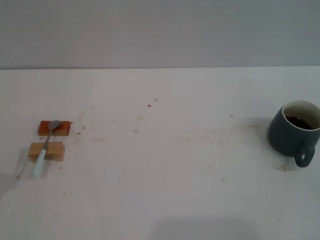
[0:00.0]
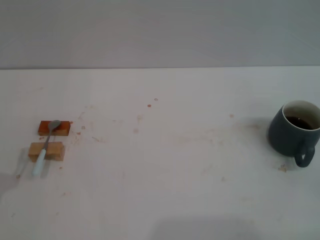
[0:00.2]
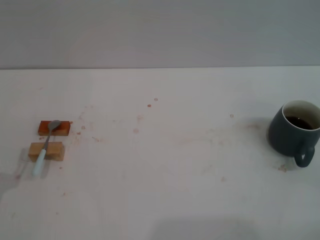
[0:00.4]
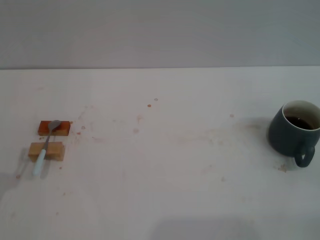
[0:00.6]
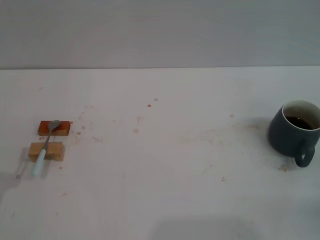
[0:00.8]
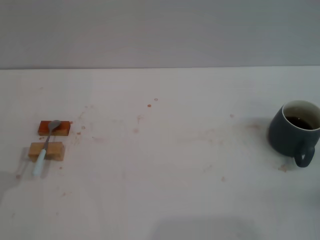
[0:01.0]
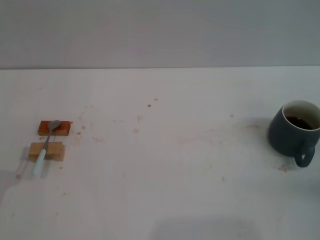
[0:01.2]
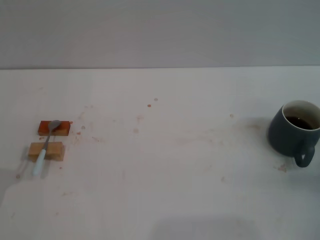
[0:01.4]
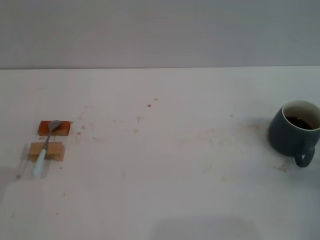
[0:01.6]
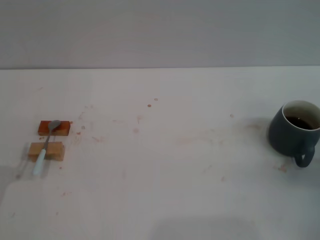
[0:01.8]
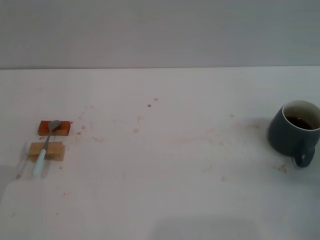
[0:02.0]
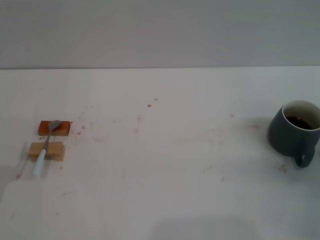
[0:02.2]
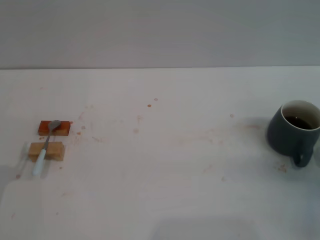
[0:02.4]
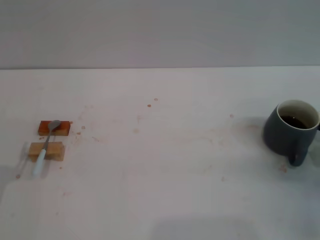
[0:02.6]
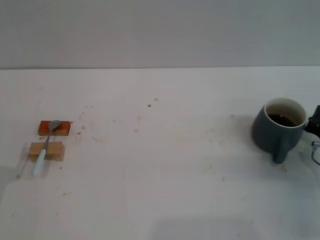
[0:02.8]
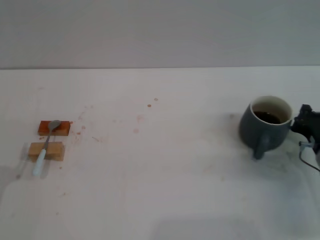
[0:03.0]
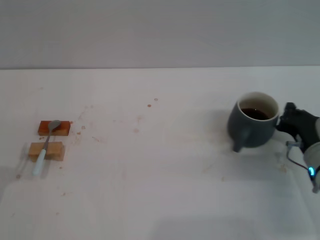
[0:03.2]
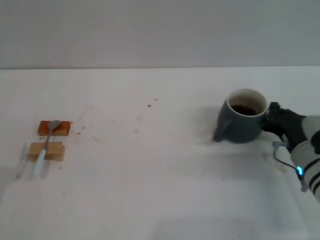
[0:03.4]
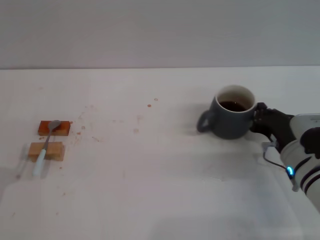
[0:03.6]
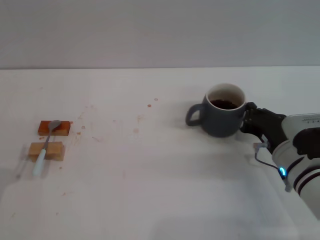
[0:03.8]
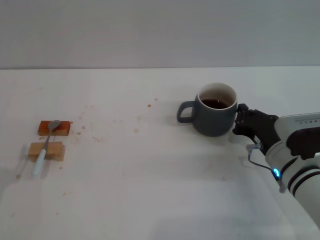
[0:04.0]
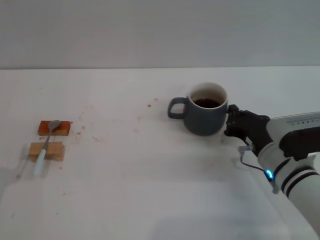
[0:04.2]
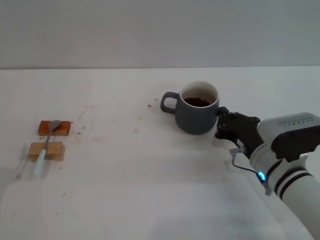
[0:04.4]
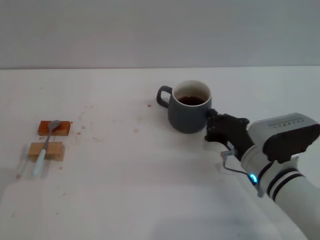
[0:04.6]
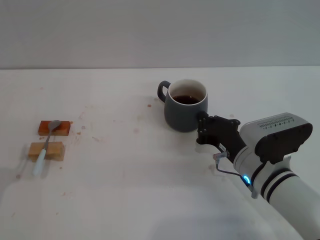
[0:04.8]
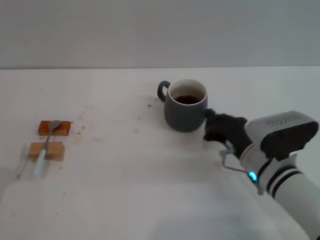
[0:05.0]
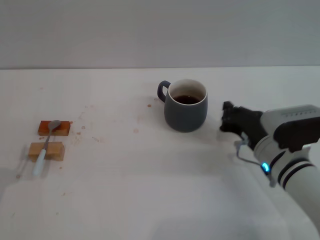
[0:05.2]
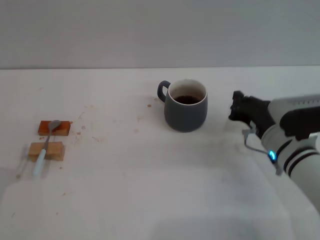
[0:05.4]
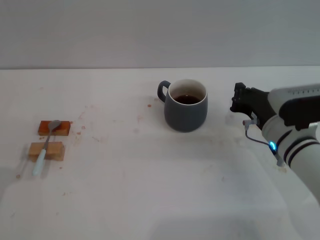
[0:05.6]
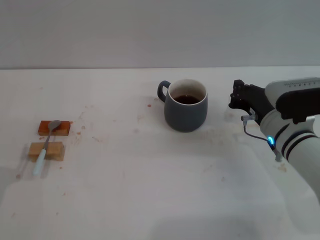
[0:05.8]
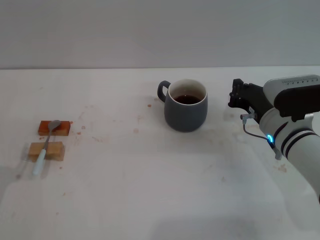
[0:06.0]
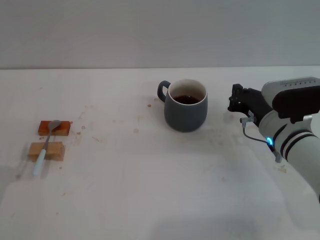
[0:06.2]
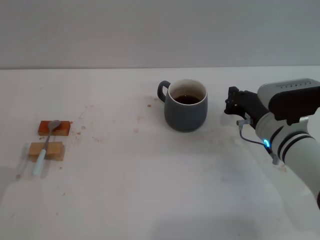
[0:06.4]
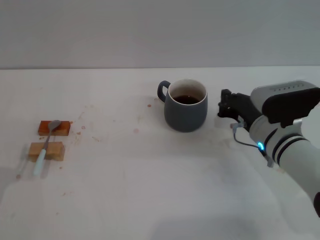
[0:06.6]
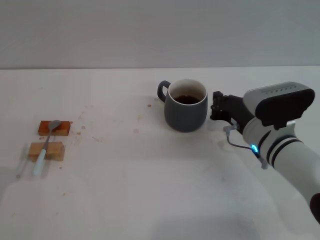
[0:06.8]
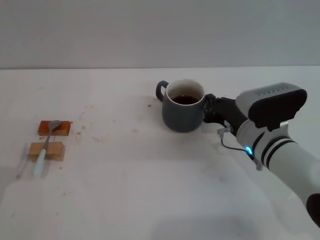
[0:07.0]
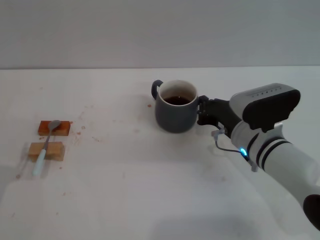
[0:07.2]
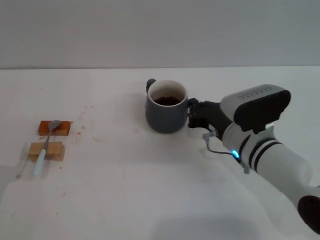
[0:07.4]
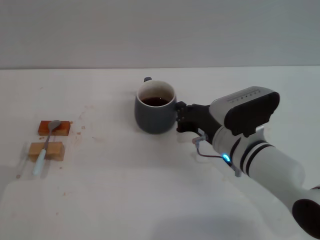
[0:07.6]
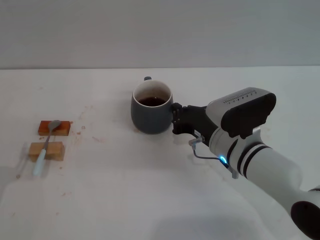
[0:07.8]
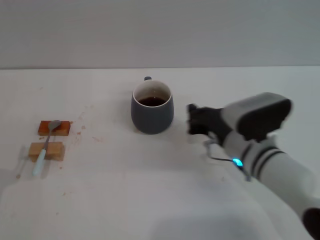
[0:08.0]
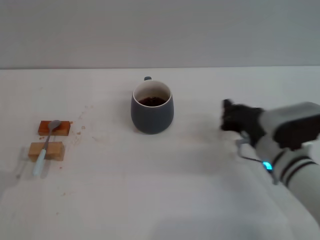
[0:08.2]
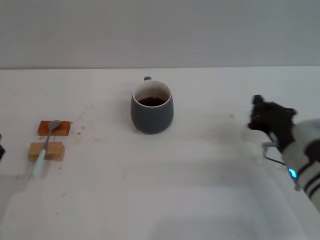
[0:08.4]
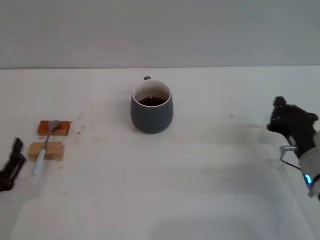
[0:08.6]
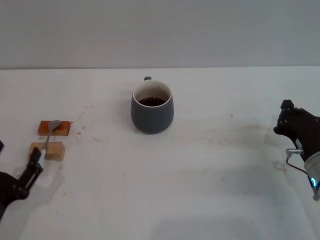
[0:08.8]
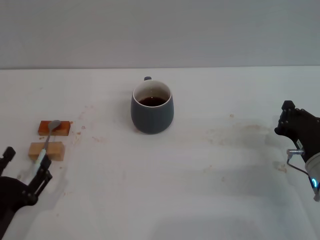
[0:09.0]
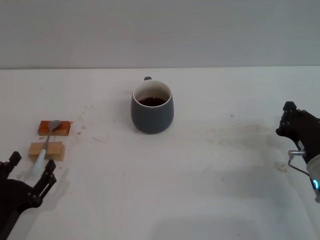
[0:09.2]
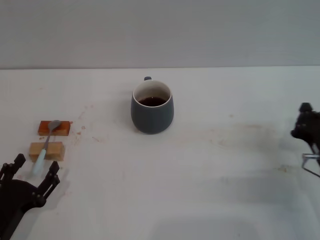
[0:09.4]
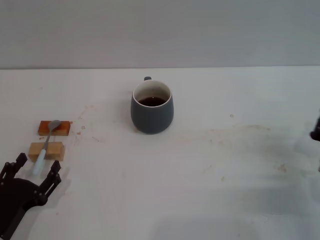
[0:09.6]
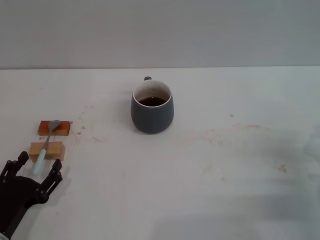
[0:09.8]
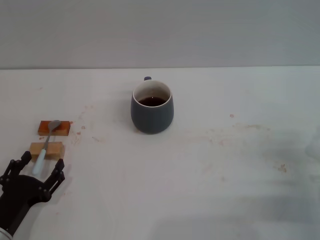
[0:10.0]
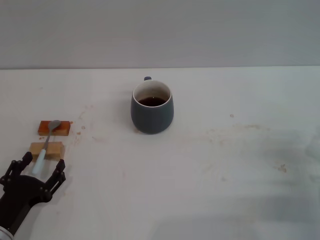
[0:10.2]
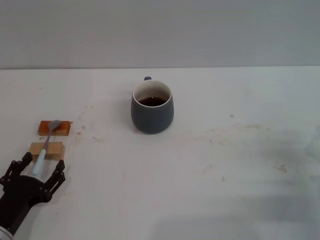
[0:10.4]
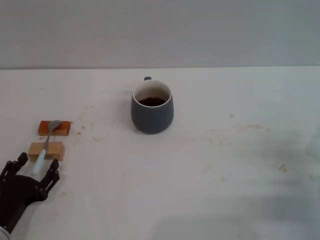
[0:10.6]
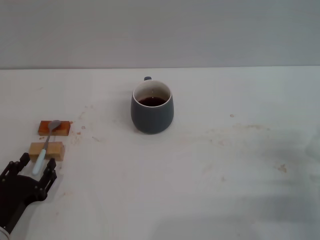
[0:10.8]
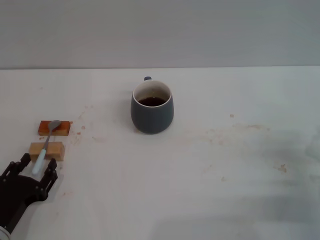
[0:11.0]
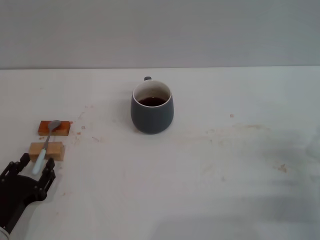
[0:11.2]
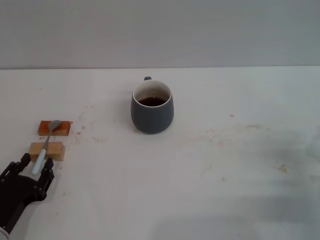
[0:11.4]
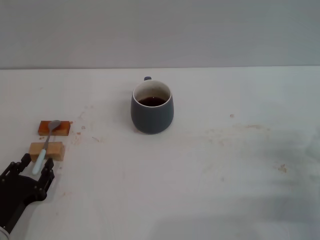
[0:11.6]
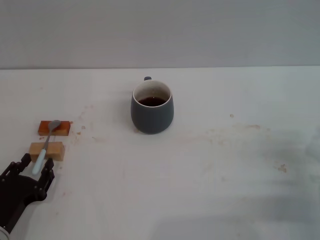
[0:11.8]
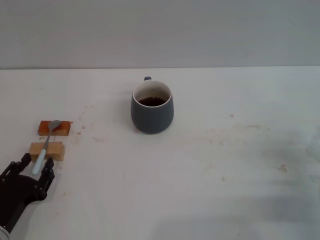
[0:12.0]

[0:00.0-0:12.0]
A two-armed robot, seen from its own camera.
Task of the whole recording: Move the grey cup to the center, lift the blue spoon, stir it three times in the cup, and put the spoon into the cup.
Step, 0:00.0 to 0:08.2: Move the cup with coffee to the center of view with the right gripper.
0:00.0 to 0:01.6: The right gripper is displaced forward by some 10 cm.
0:01.6 to 0:03.0: The right gripper travels to the left by about 5 cm.
0:03.0 to 0:04.4: The right gripper goes approximately 10 cm to the left.
0:04.4 to 0:06.0: The right gripper travels forward by roughly 5 cm.
0:06.0 to 0:07.6: The right gripper shifts about 5 cm to the left.
0:07.6 to 0:09.0: The right gripper shifts roughly 15 cm to the right. Meanwhile the left gripper ends up approximately 5 cm from where it was.
0:09.0 to 0:10.4: The right gripper moves roughly 5 cm.
0:10.4 to 0:12.0: Both grippers stay about where they are.

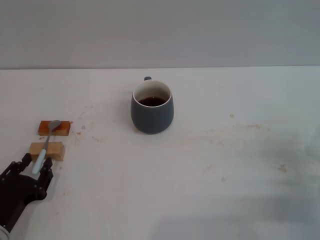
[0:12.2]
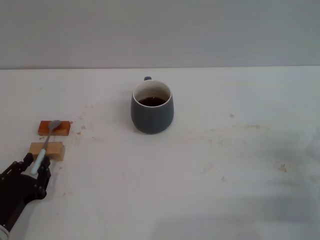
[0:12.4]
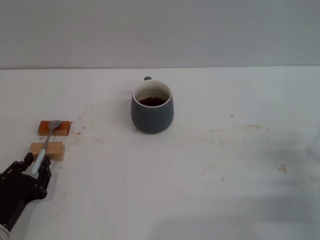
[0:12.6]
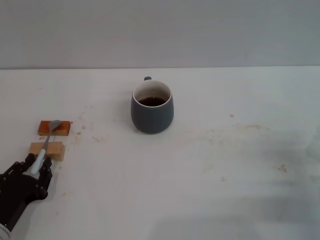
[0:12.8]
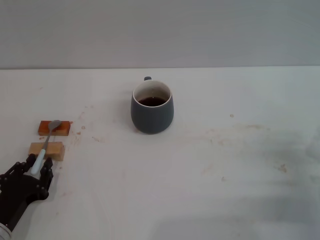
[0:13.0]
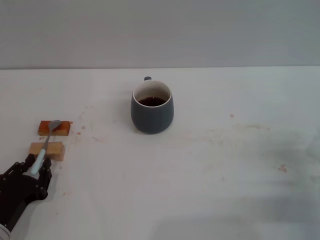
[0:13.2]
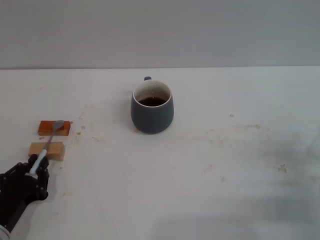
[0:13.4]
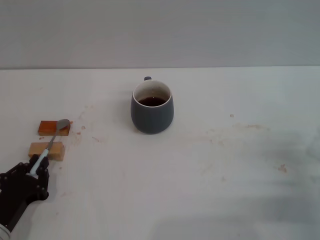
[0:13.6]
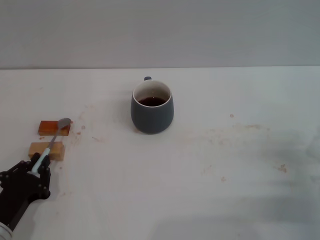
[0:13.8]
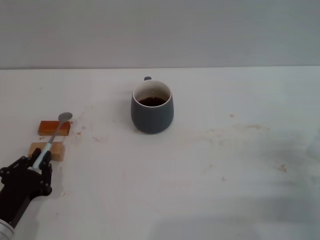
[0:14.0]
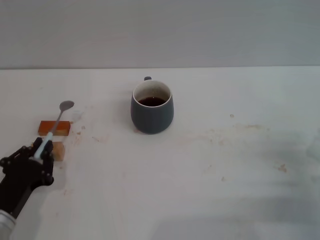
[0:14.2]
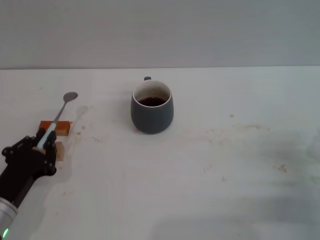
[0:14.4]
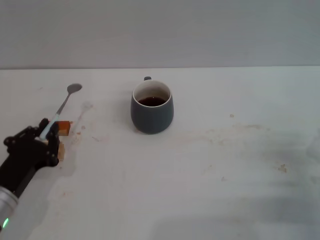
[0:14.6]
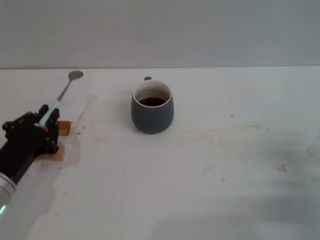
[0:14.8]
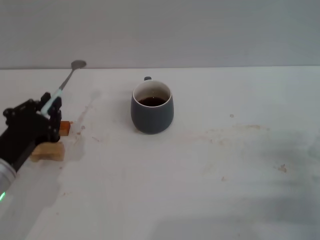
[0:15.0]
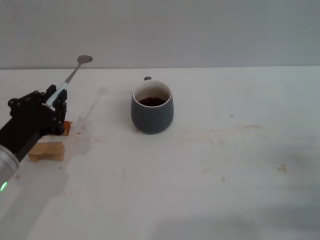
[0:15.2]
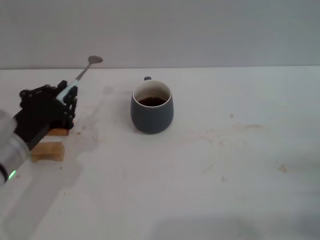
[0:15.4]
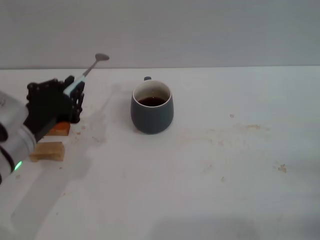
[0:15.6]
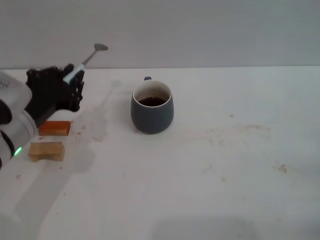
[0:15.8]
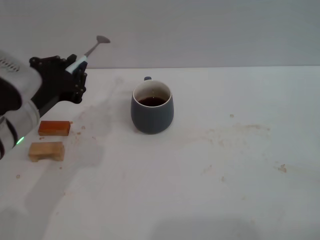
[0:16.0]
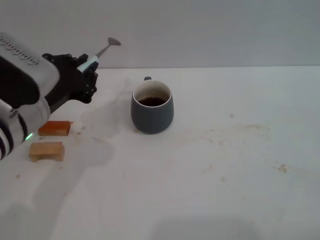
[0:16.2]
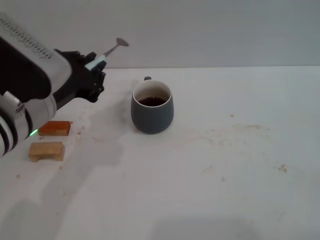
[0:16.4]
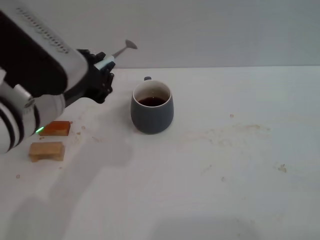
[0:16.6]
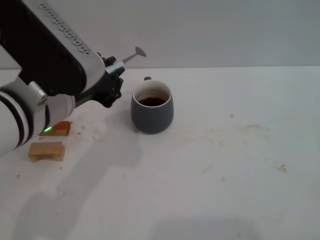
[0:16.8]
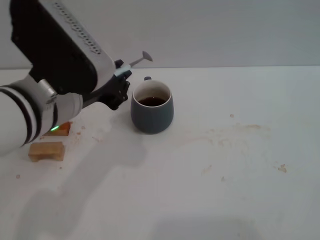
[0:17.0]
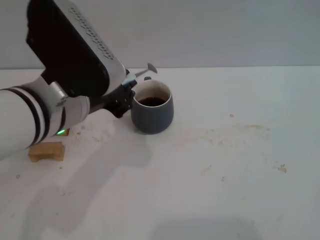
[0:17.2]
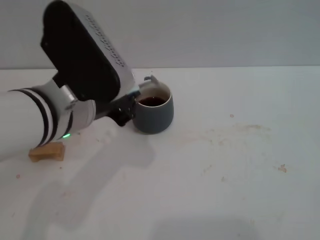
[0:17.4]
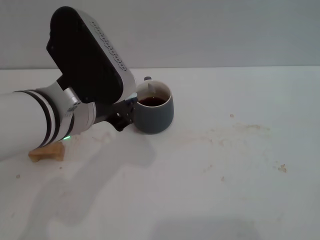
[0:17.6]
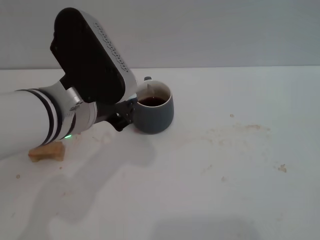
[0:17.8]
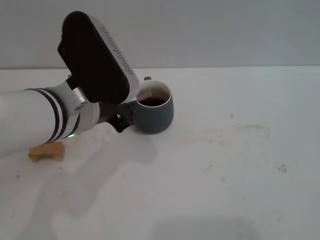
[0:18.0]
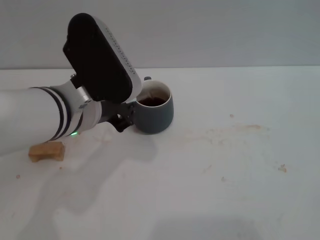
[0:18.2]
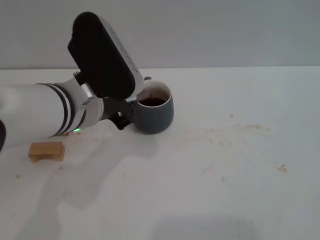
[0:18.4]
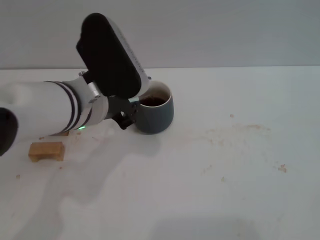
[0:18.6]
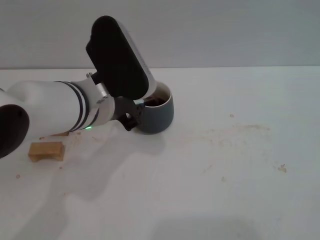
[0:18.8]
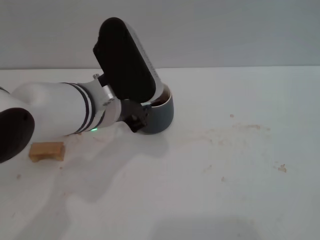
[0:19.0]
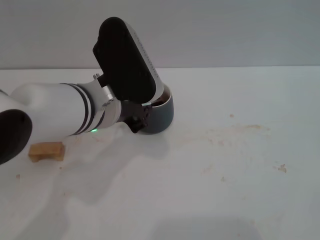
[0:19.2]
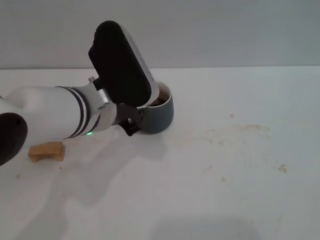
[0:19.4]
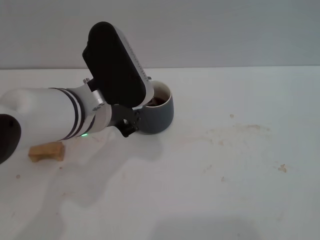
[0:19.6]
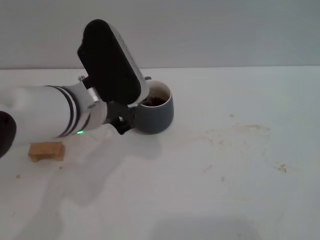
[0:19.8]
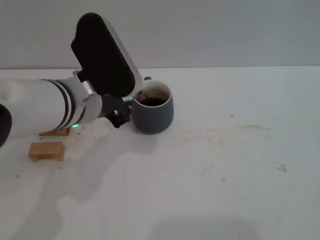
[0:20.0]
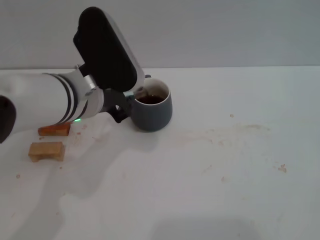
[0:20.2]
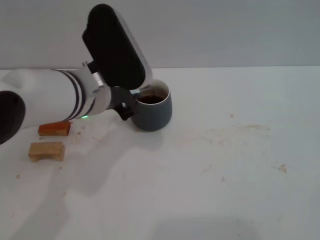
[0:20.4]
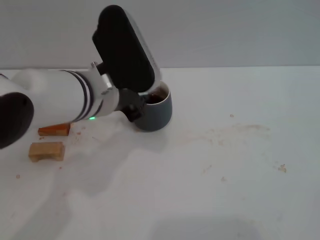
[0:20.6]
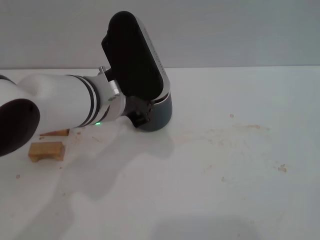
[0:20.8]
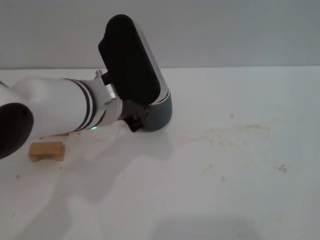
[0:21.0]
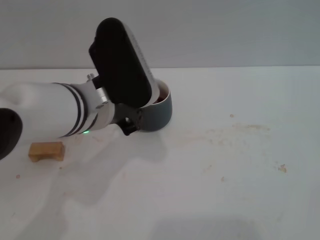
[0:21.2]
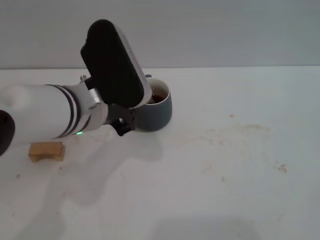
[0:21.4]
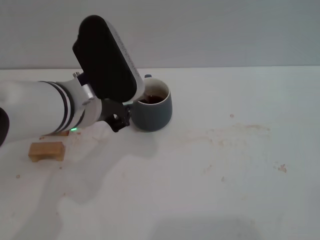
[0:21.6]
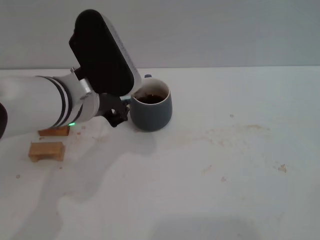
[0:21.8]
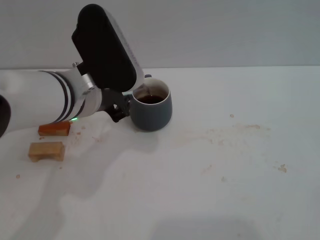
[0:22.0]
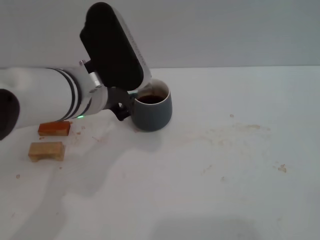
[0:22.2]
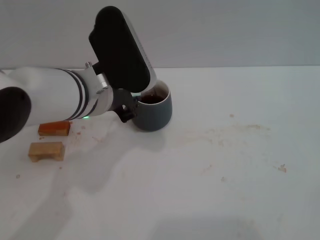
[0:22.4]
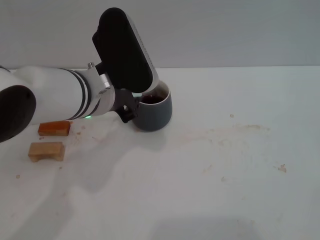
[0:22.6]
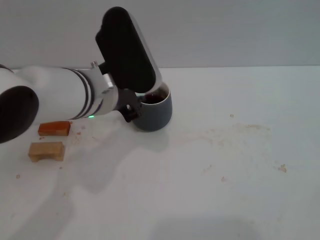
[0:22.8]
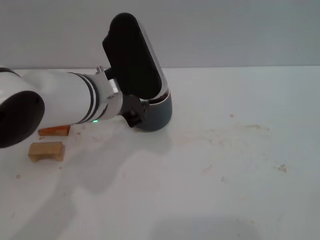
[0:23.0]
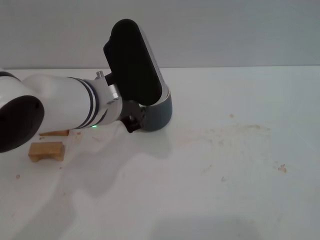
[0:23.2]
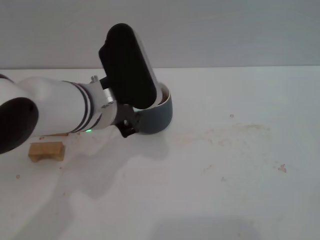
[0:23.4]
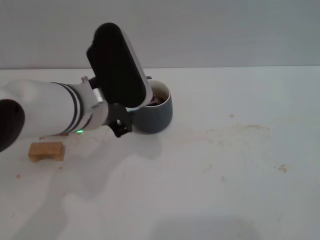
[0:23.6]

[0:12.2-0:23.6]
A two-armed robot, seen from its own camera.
Task of the whole recording: Move the grey cup to the center, lift the blue spoon, stir it three times in the cup, and put the spoon into the cup.
Step, 0:12.2 to 0:14.6: Pick up the spoon with the left gripper.
0:12.2 to 0:13.6: The left gripper closes.
0:13.6 to 0:15.0: The left gripper heads upward and forward, covering about 10 cm.
0:15.0 to 0:16.4: The right gripper goes roughly 10 cm to the right and backward. The left gripper heads upward and to the right, covering approximately 15 cm.
0:17.8 to 0:23.6: The grippers stay close to where they were, moving slightly.
